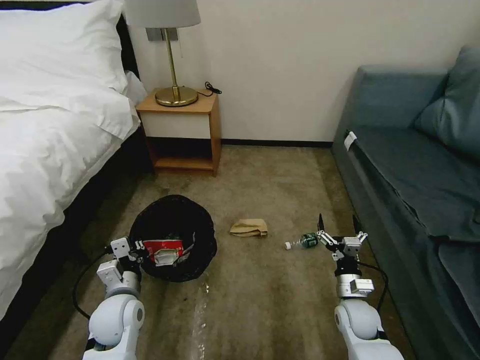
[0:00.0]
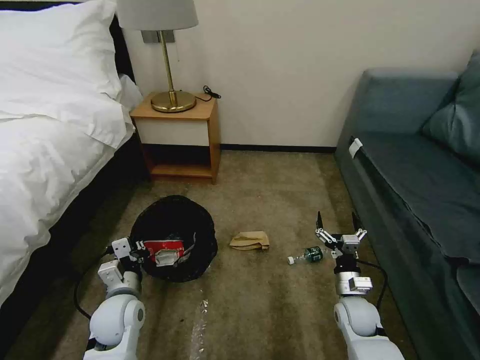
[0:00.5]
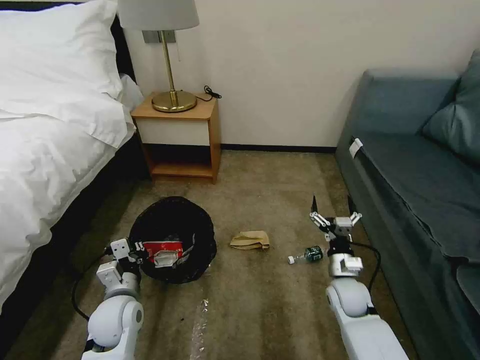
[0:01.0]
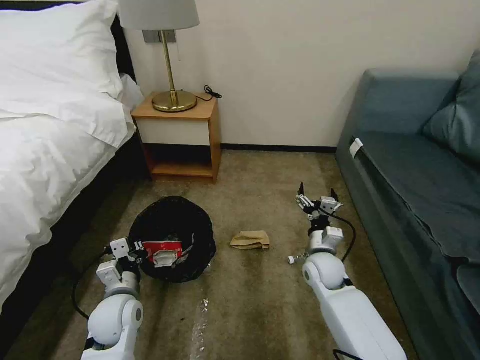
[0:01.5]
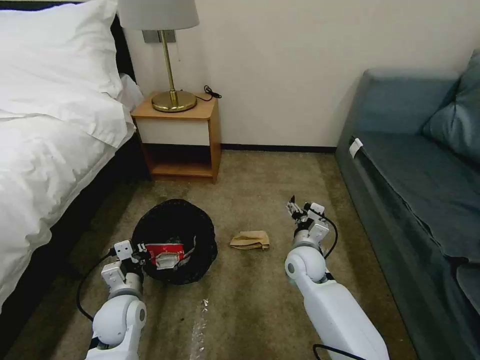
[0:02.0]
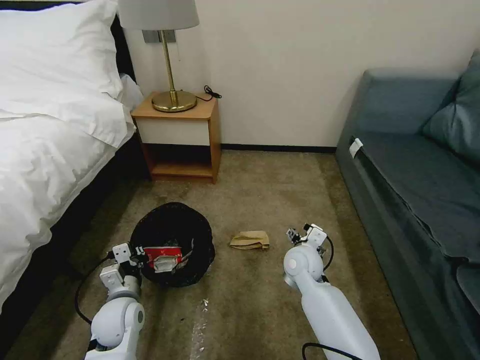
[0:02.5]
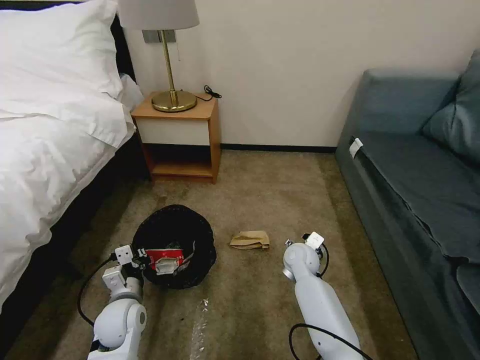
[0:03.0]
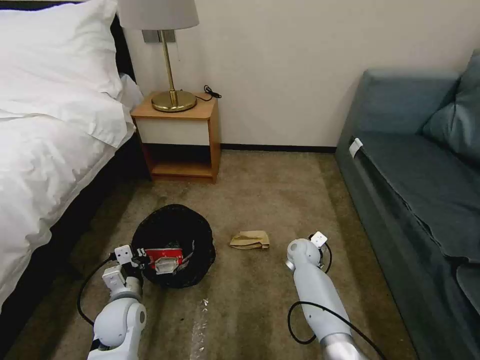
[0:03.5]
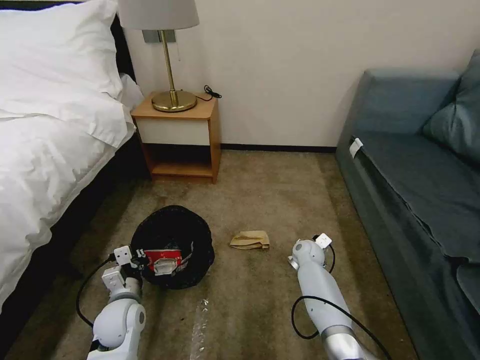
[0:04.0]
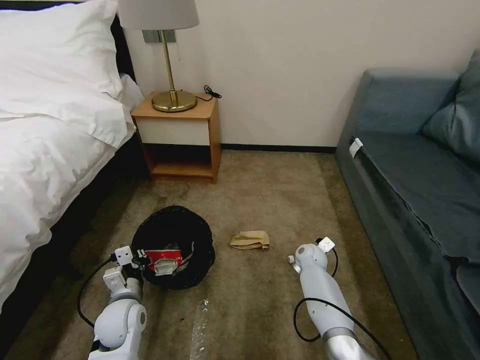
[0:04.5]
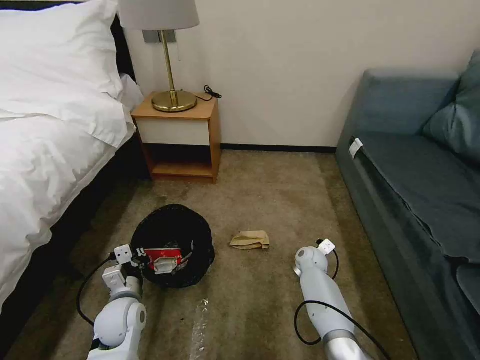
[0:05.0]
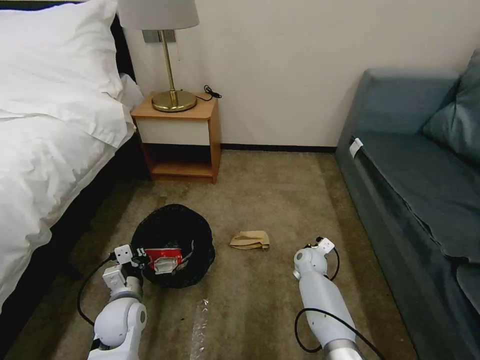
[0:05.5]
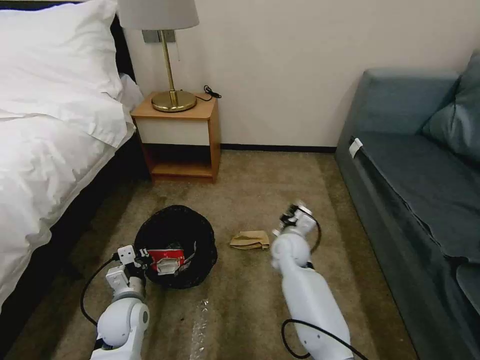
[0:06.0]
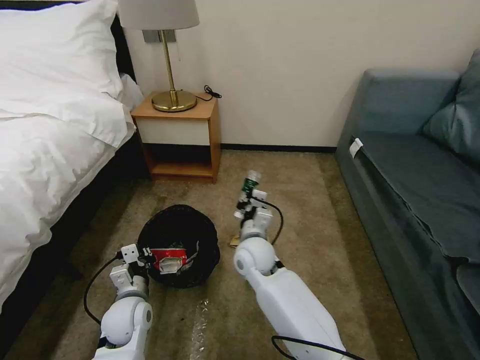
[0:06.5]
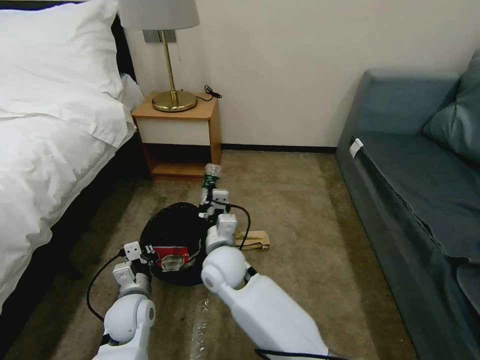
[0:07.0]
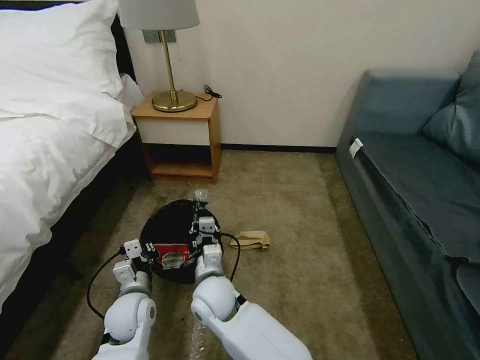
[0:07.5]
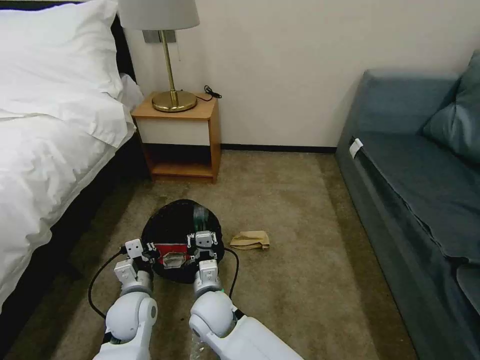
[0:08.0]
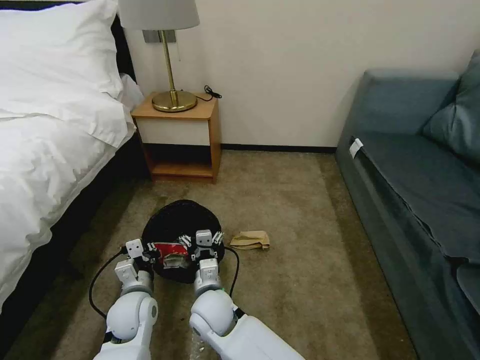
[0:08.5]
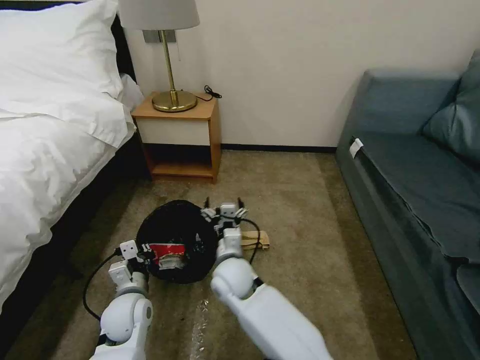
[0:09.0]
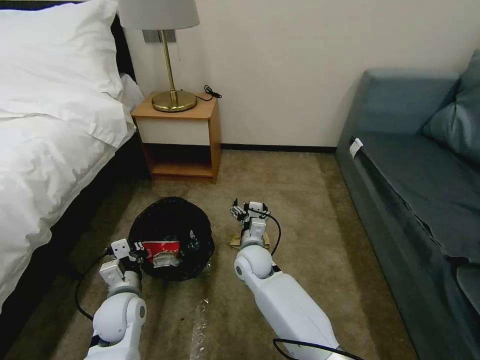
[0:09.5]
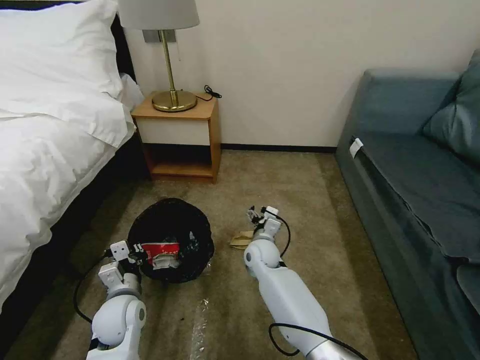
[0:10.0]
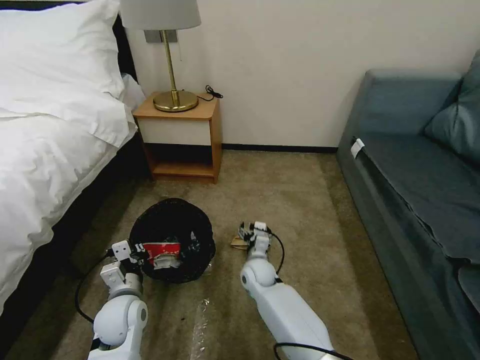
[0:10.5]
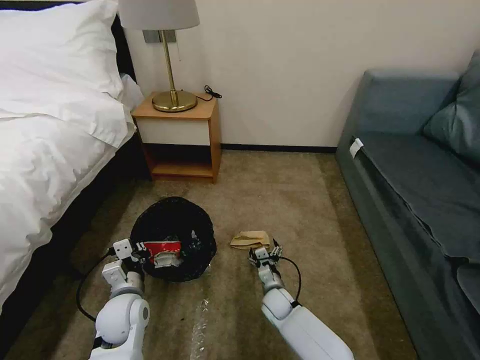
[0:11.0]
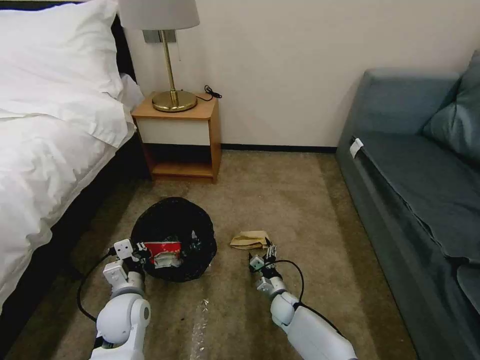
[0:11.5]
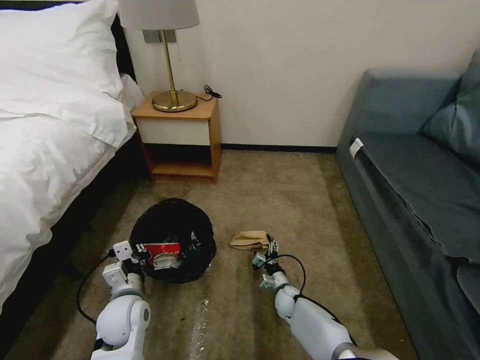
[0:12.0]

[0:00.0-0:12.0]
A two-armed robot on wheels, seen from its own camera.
Task of the whole recording: Pick up the trash bin, then pick up the garbage on the floor and place it into the trash bin.
0:00.0 to 0:02.0: The right gripper heads to the left, forward and upward, covering some 20 cm.
0:02.0 to 0:04.0: The right gripper heads downward, forward and to the right, covering some 15 cm.
0:04.0 to 0:06.0: The right gripper moves upward and to the left, roughly 15 cm, and closes.
0:06.0 to 0:08.0: The right gripper goes some 25 cm to the left and backward.
0:08.0 to 0:10.0: The right gripper heads forward and to the right, covering about 20 cm, and opens up.
0:10.0 to 0:12.0: The right gripper heads downward and to the right, covering about 25 cm.

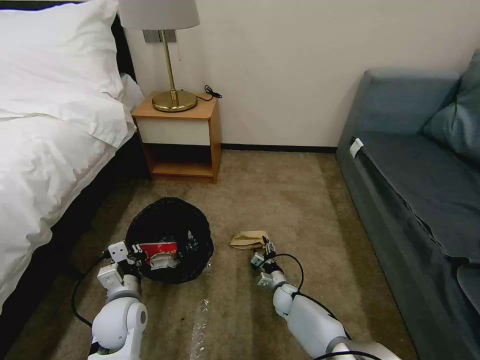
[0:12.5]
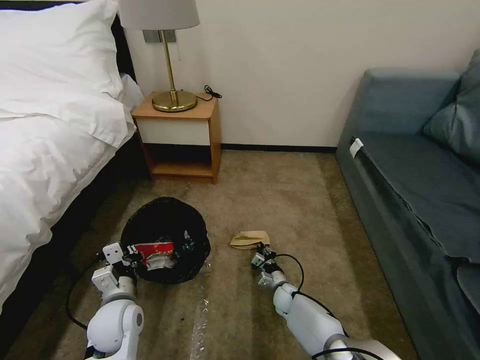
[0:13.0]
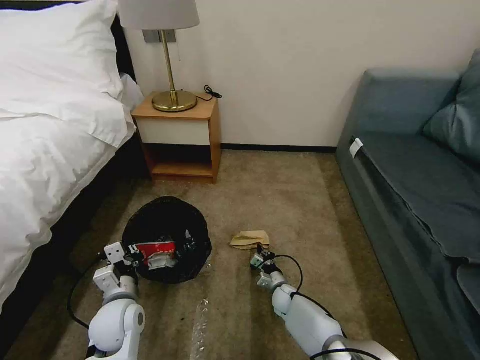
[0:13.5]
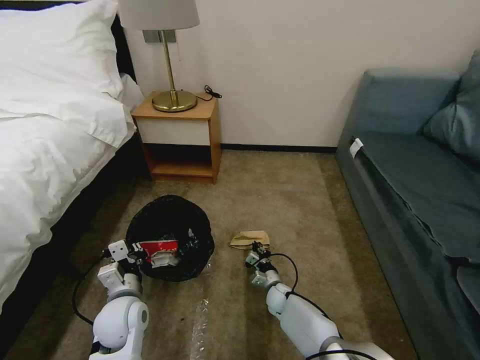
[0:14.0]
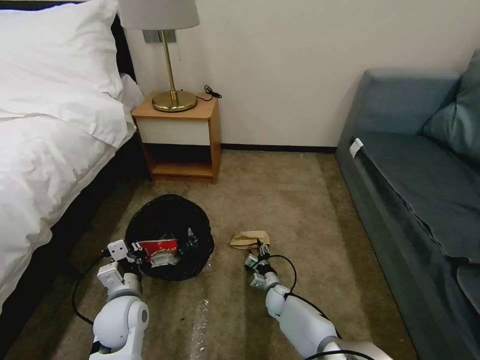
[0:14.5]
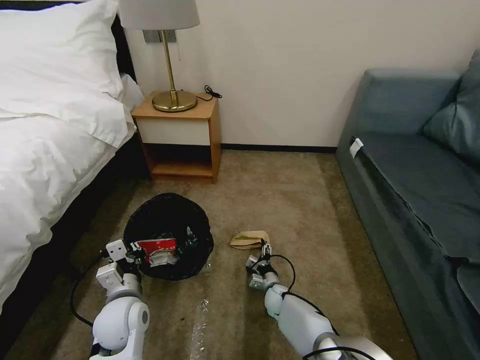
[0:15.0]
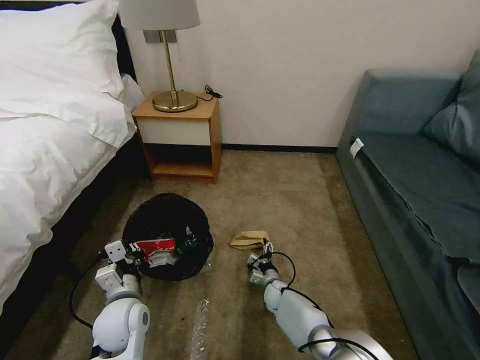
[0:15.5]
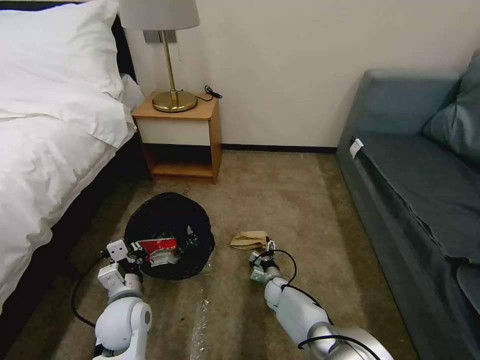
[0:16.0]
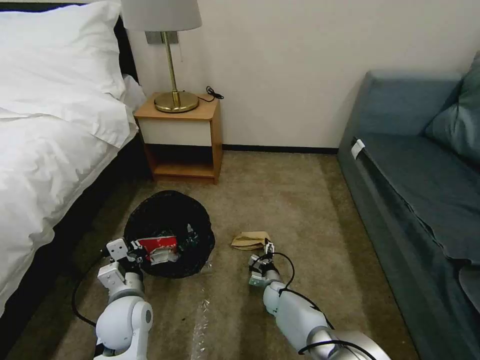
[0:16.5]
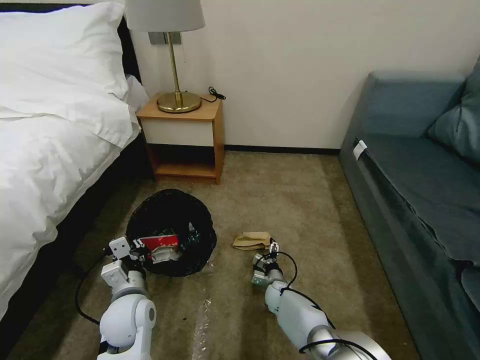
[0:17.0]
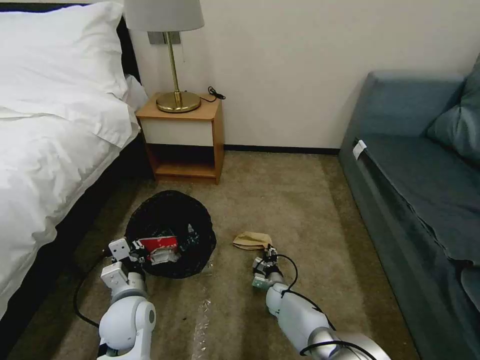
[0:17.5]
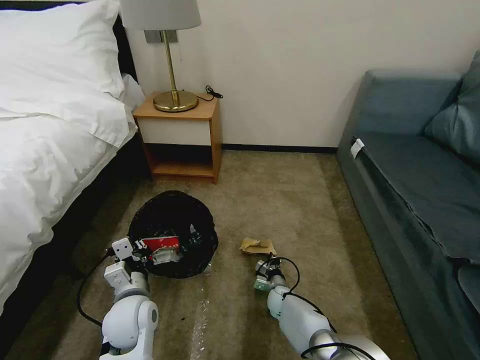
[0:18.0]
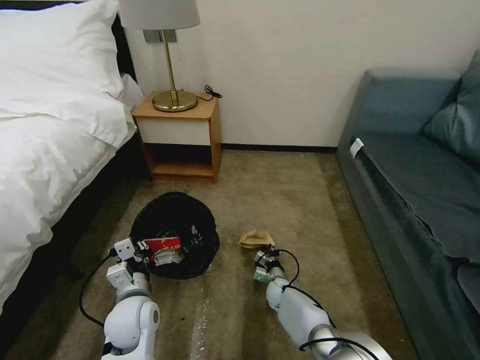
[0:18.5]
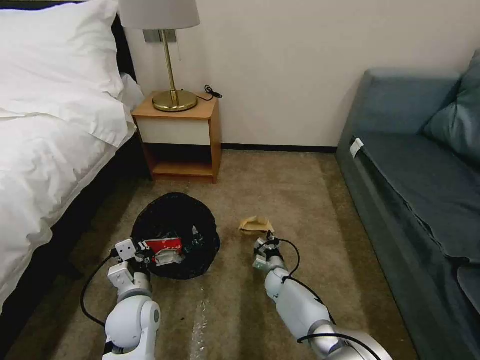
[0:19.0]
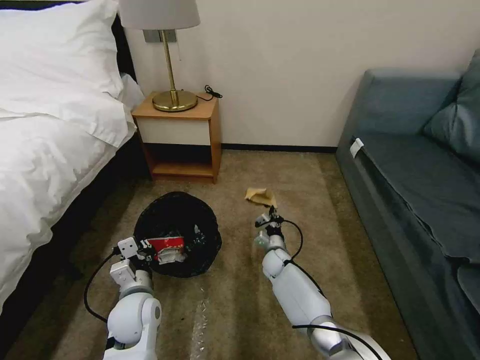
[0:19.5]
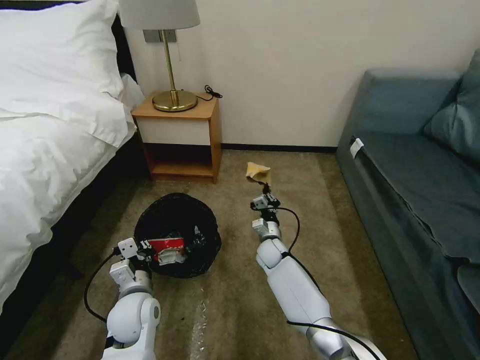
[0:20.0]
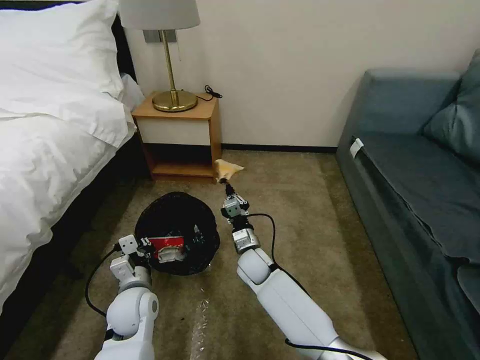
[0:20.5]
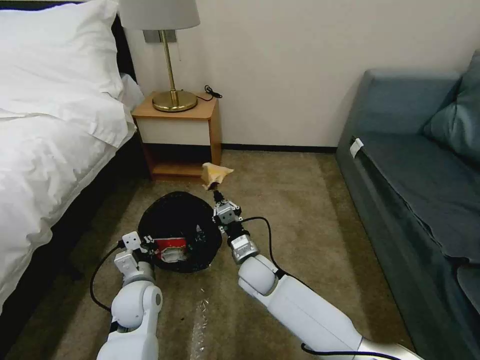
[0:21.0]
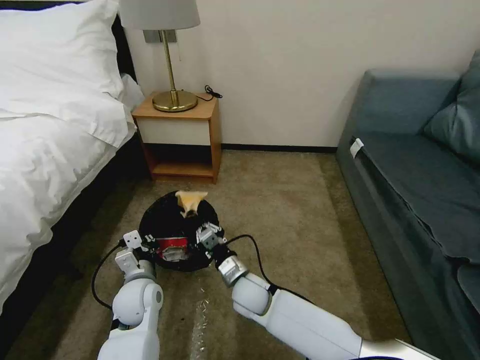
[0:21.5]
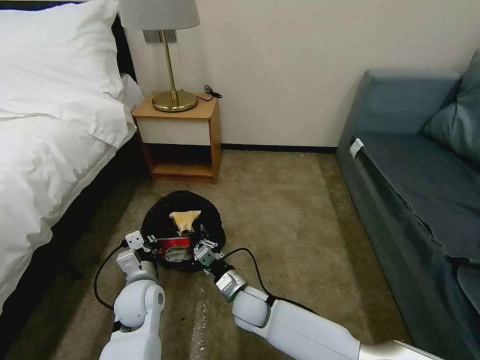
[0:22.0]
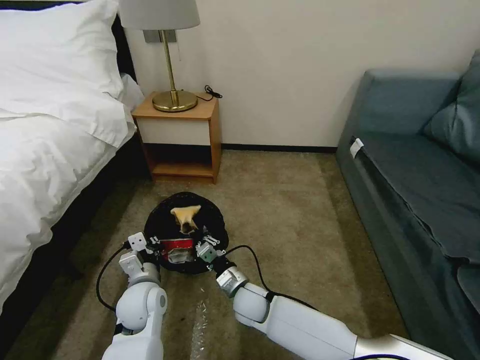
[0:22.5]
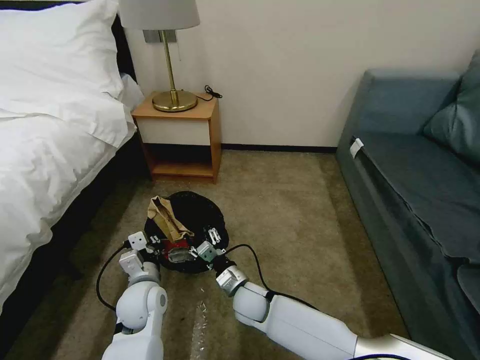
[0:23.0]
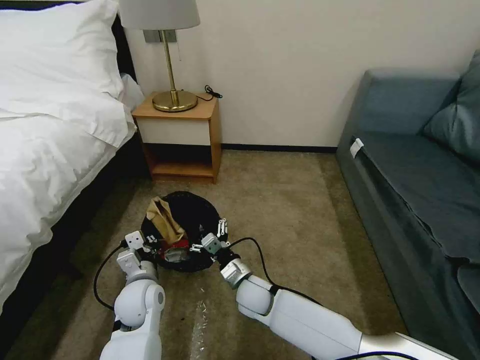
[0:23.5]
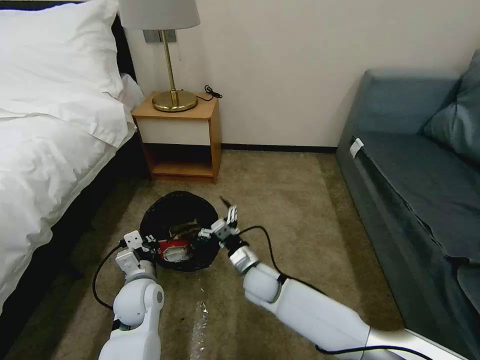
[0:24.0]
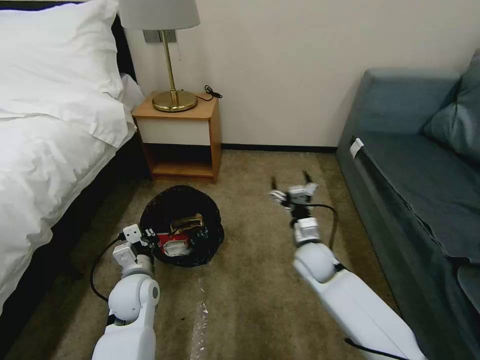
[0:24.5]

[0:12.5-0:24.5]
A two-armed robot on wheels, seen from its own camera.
Task of the whole recording: Pick up the trash bin, then pick up the garbage on the floor and place it into the trash bin.
0:12.5 to 0:14.5: The right gripper closes, then reopens.
0:14.5 to 0:16.5: The right gripper opens its fingers.
0:16.5 to 0:18.5: The right gripper closes up.
0:18.5 to 0:20.5: The right gripper is displaced upward and to the left by some 20 cm.
0:20.5 to 0:22.5: The right gripper is displaced backward by about 10 cm.
0:22.5 to 0:24.5: The right gripper is displaced to the right, upward and forward by about 20 cm, and opens its fingers.

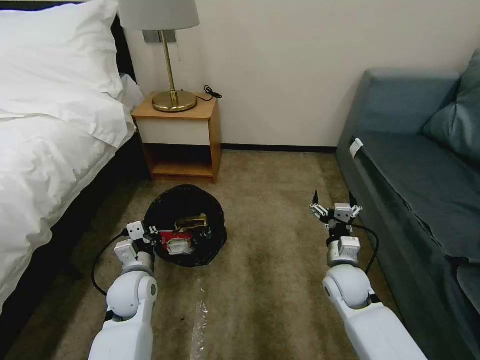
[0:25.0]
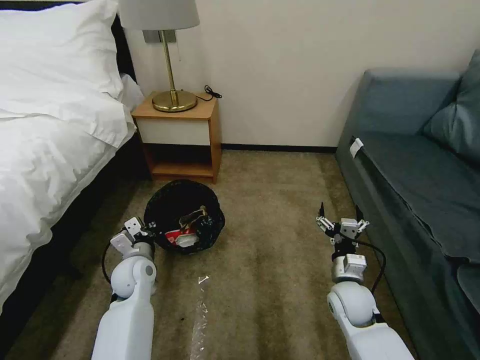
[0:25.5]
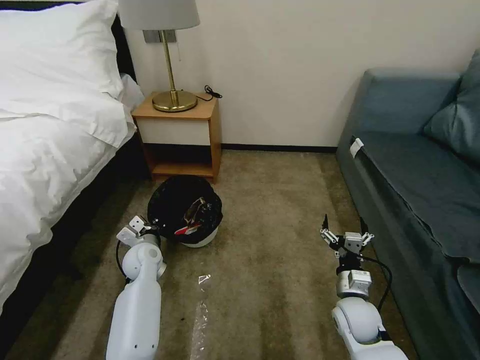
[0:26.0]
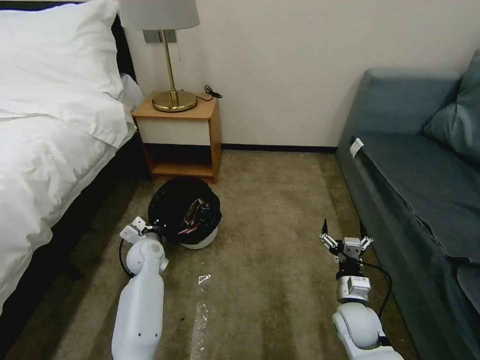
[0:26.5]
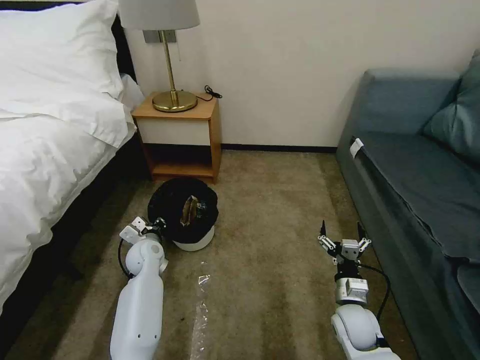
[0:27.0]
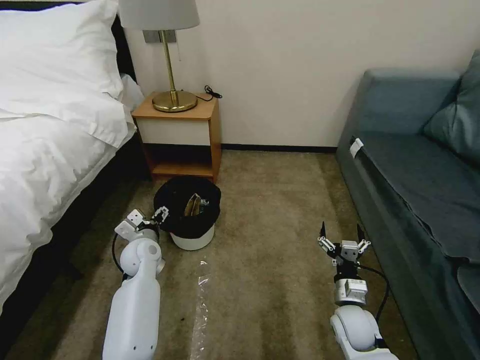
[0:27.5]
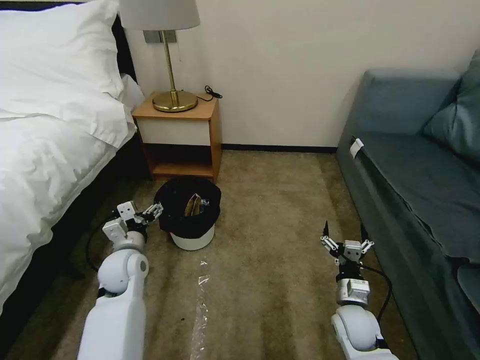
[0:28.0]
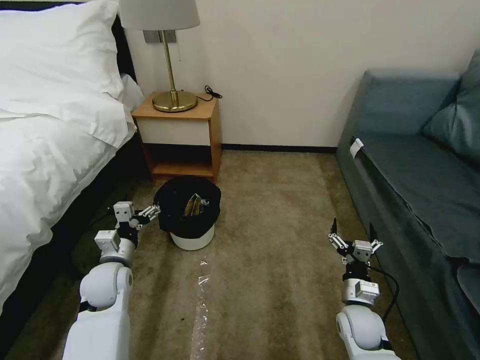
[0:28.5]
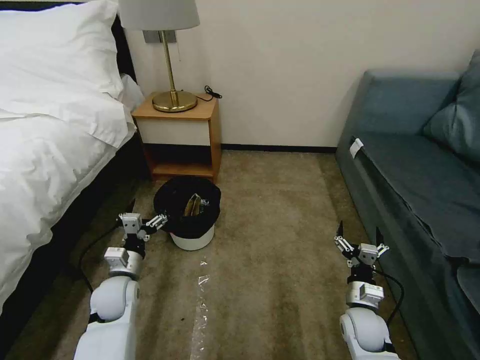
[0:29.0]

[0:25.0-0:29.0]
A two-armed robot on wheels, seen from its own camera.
Task of the whole recording: Pick up the trash bin, then pick up the garbage on the floor and place it into the trash bin.
0:25.0 to 0:27.0: The right gripper travels backward and downward by approximately 10 cm, while the left gripper shifts about 10 cm forward, and opens up.
0:27.0 to 0:29.0: The left gripper moves backward, approximately 10 cm, and opens up.
